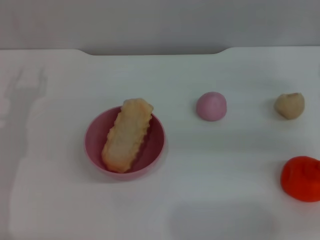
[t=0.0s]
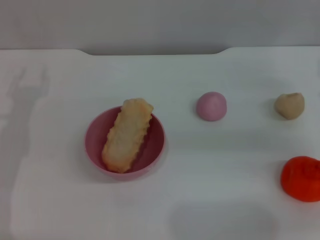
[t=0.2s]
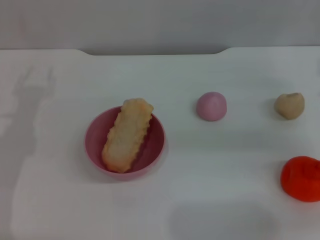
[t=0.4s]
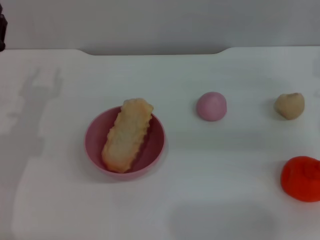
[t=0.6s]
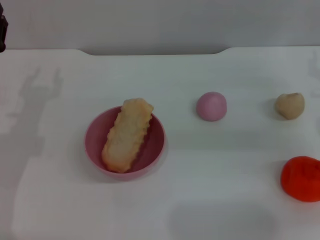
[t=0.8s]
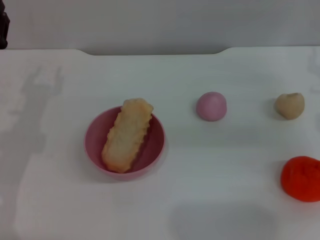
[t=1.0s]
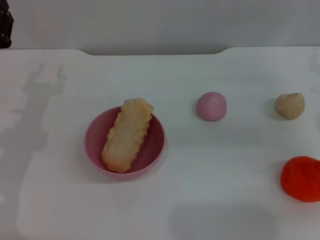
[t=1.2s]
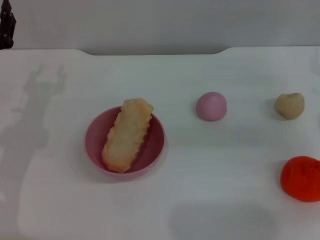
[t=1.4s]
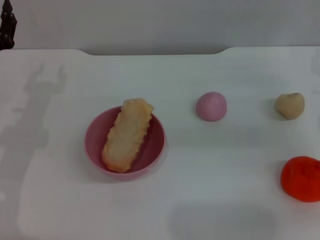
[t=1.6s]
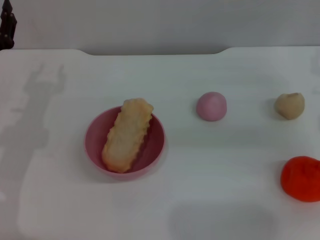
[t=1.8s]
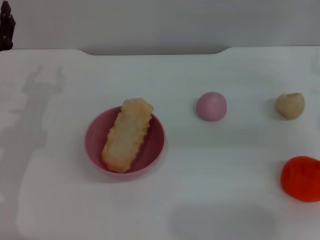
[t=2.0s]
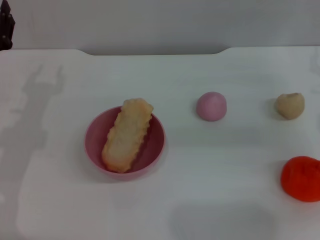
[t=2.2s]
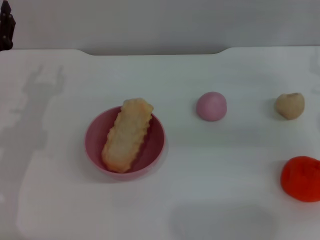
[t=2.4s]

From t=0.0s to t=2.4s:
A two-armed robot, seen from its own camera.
Task of the whole recording: put the bread into the pink bowl and pour it out repeatedly.
From t=1.2s to t=2.4s: Neither gripper changes place.
